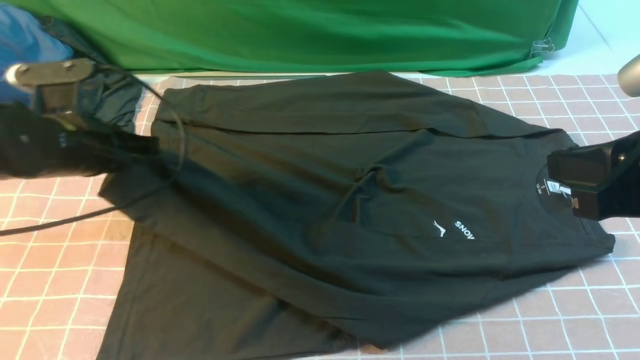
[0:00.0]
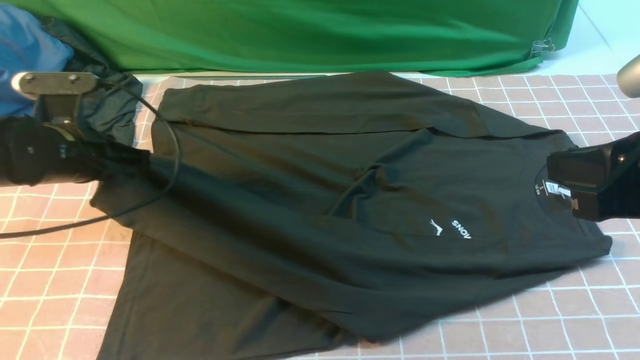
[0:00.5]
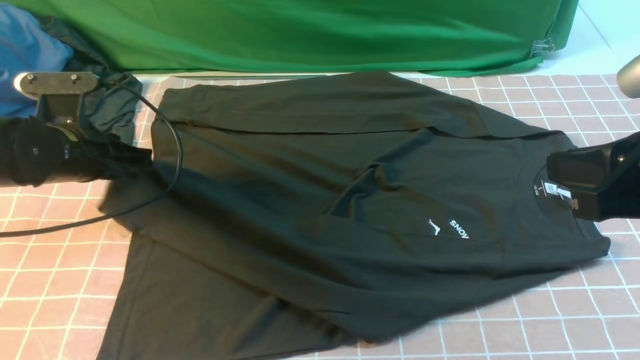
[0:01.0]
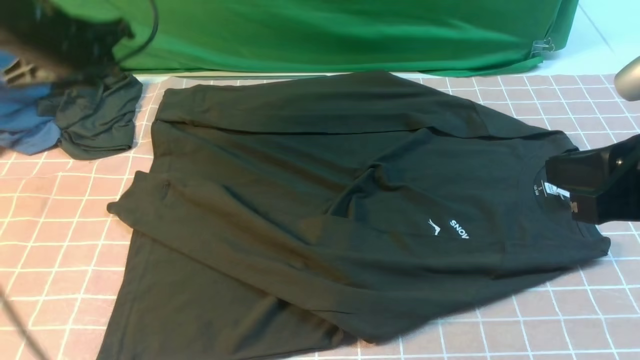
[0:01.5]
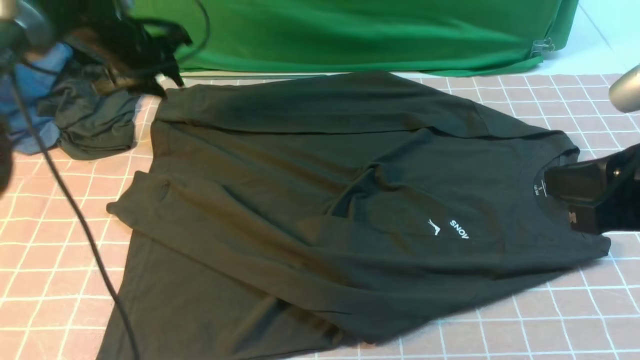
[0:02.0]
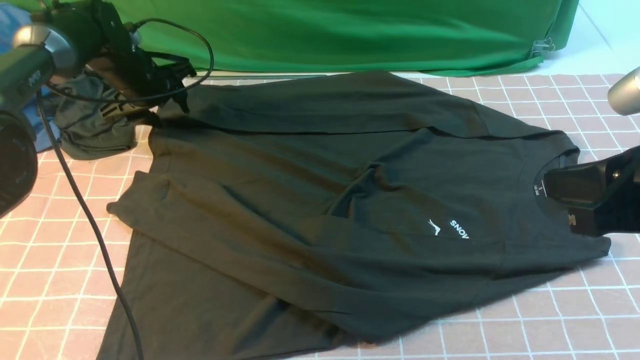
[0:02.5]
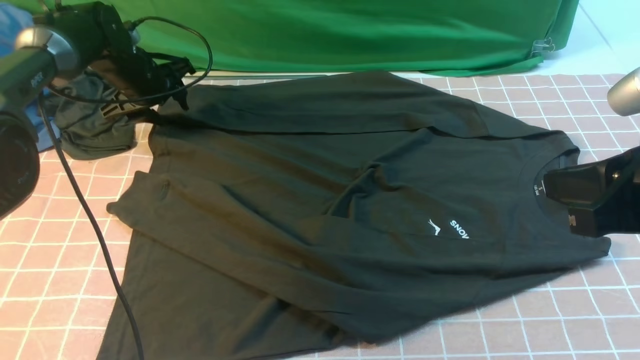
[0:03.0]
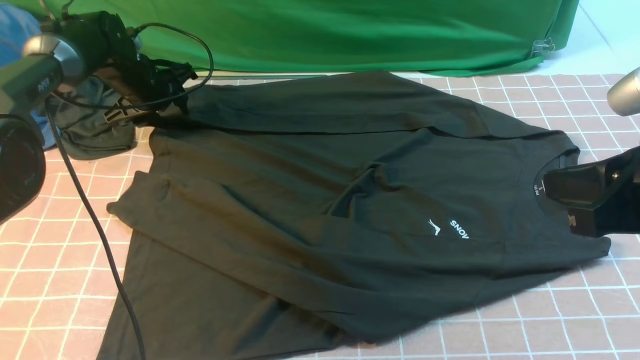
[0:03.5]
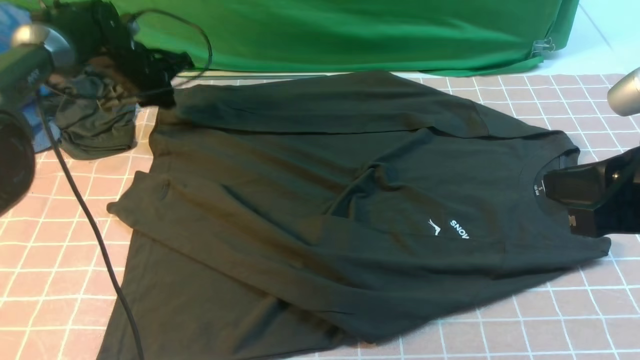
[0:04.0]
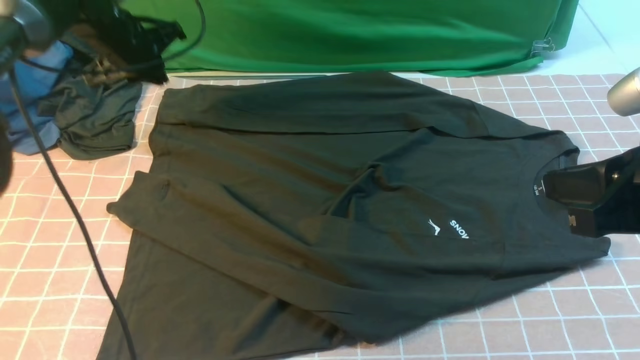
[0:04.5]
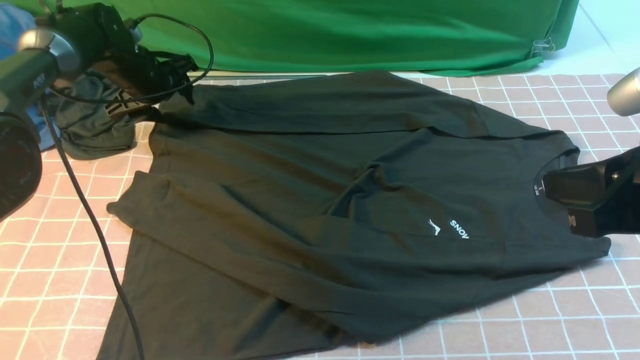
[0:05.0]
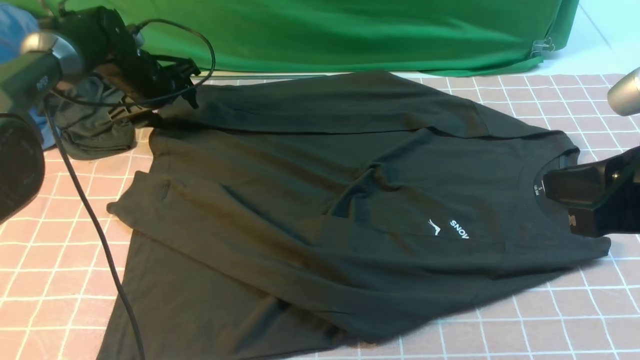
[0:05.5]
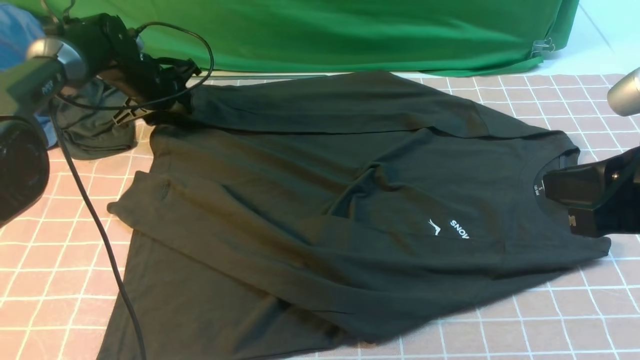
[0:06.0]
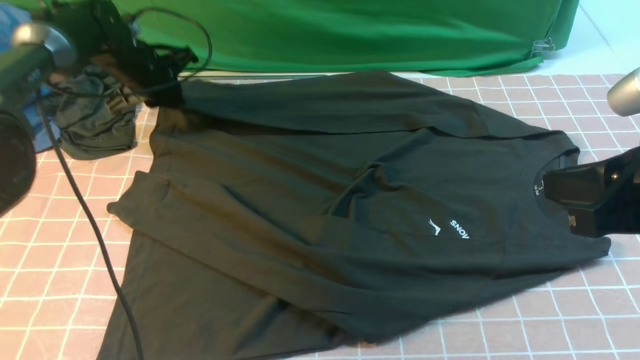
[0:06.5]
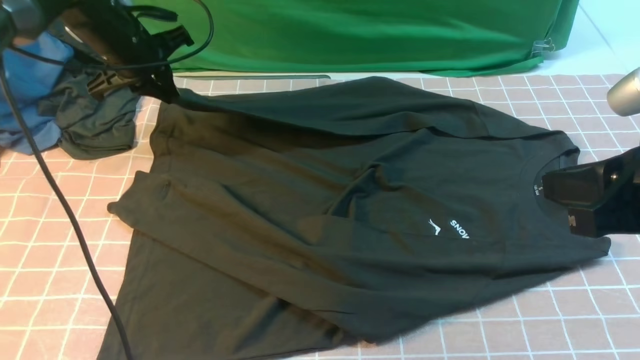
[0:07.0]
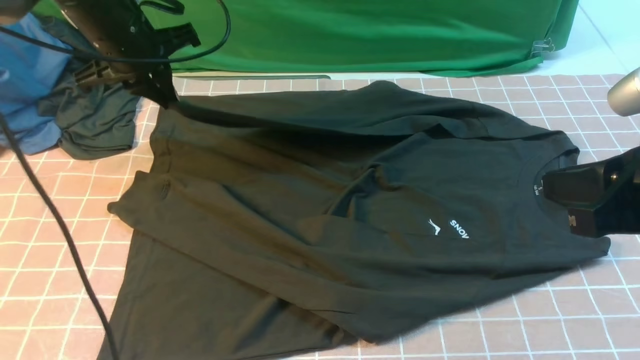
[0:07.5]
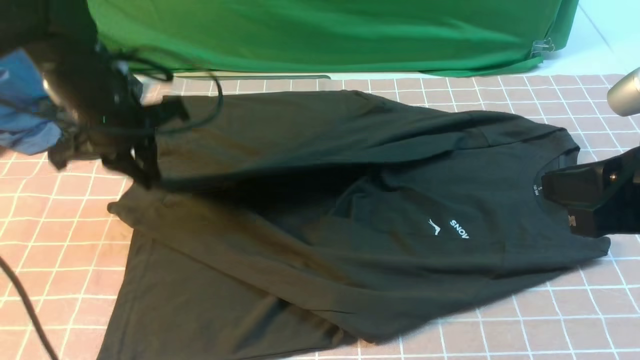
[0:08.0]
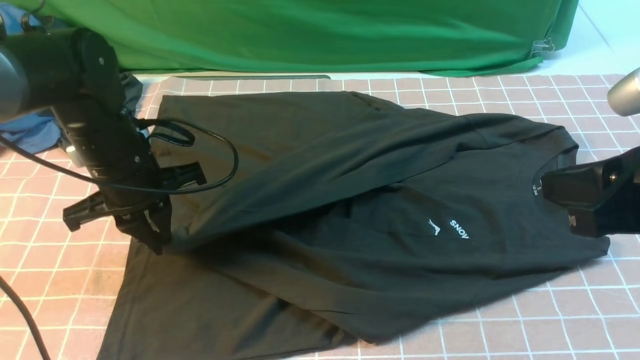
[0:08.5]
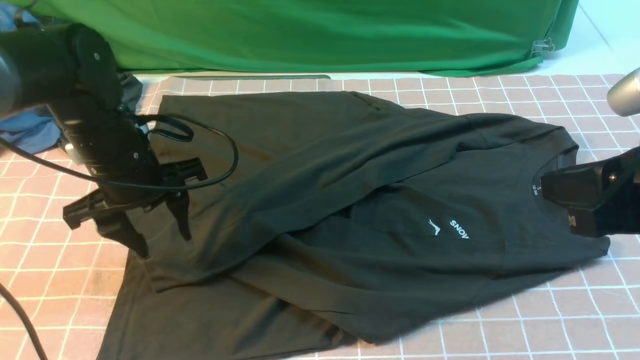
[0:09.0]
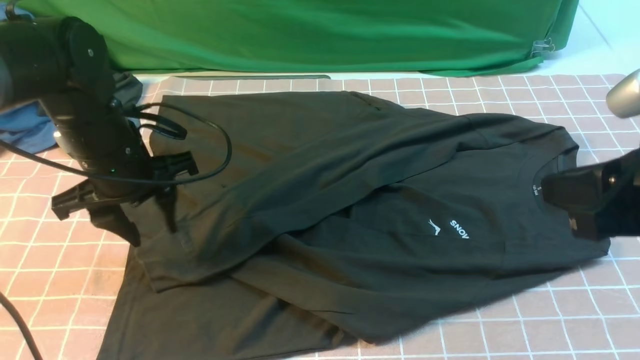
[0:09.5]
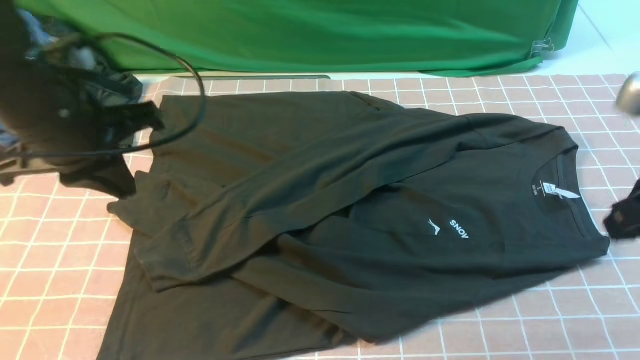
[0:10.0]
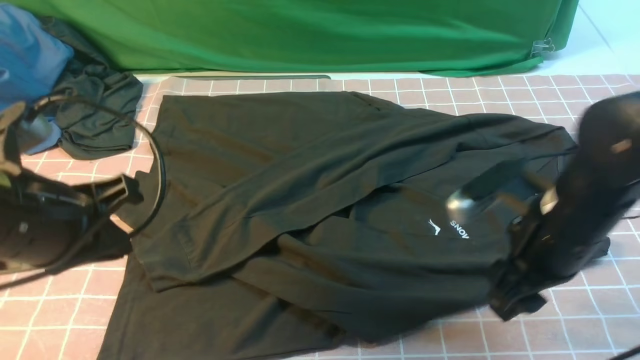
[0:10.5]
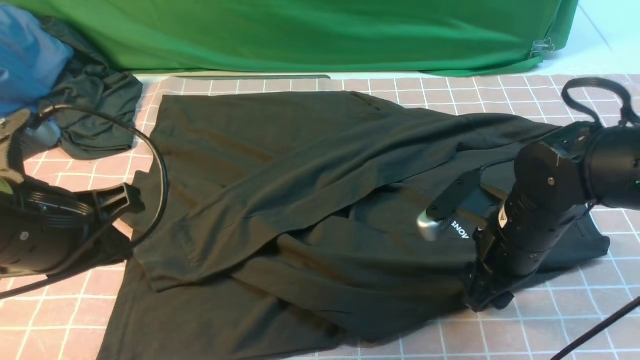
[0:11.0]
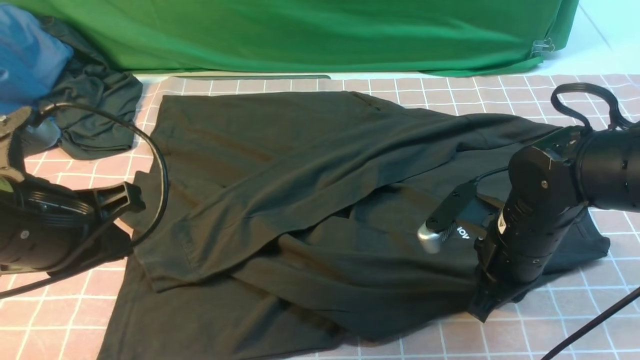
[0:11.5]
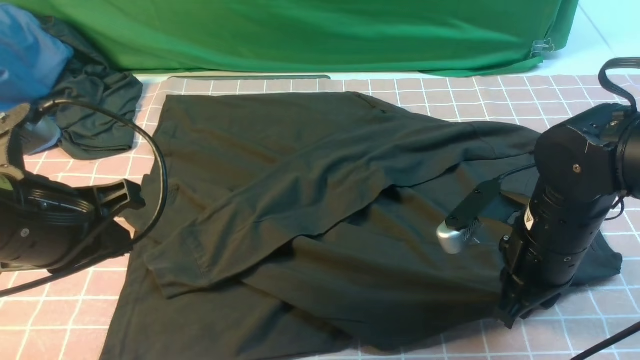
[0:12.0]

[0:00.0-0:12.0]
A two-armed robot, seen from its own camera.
Step, 0:01.5 to 0:06.0: use the left arm to clamp the cuff farthest from it.
Step, 0:06.5 to 0:08.5: use the left arm to drag and drop the cuff onto the cuff closest to the left arm.
0:00.0 to 0:02.0: The left gripper heads forward, covering some 20 cm, and opens its fingers.
0:02.0 to 0:04.0: The left gripper closes its fingers.
0:04.0 to 0:06.0: The left gripper opens up.
0:06.0 to 0:08.0: The left gripper shifts some 20 cm backward and upward, and closes its fingers.
0:08.0 to 0:10.0: The left gripper goes about 10 cm backward and upward, and opens, then closes again.
0:10.0 to 0:12.0: The left gripper moves backward, about 10 cm, while the right gripper travels downward and to the left by about 15 cm, and opens, then closes once more.

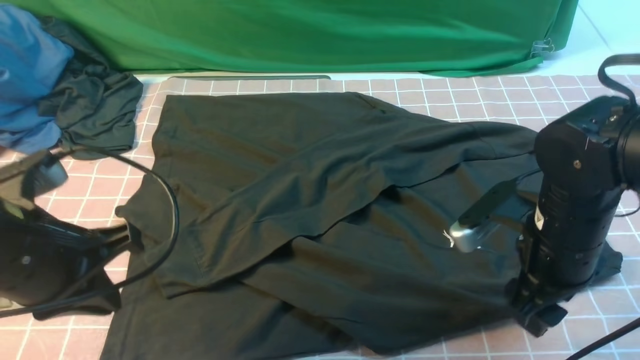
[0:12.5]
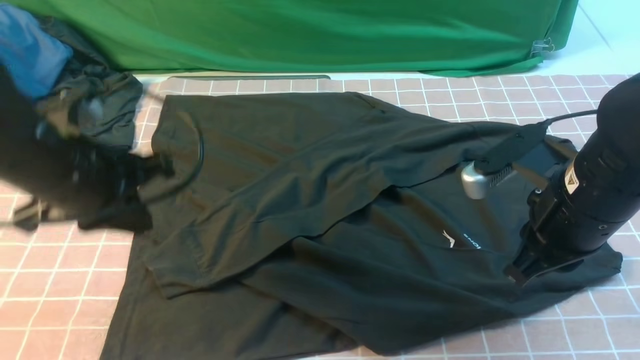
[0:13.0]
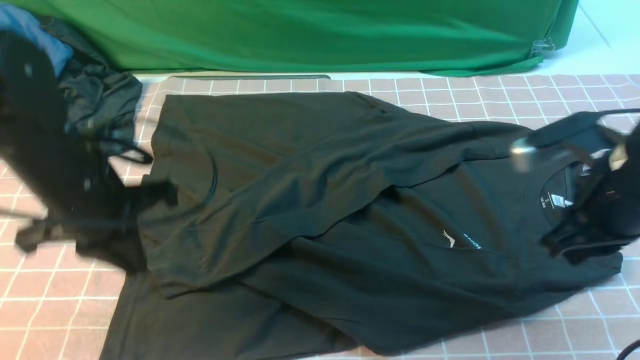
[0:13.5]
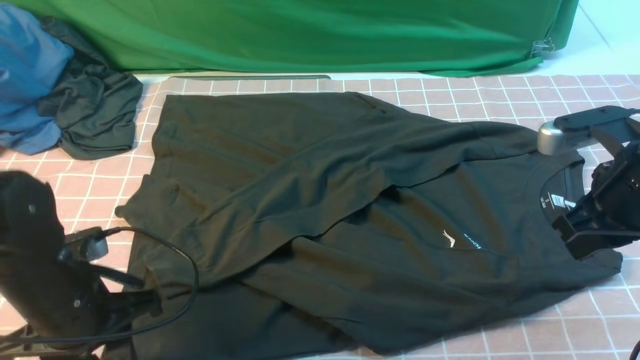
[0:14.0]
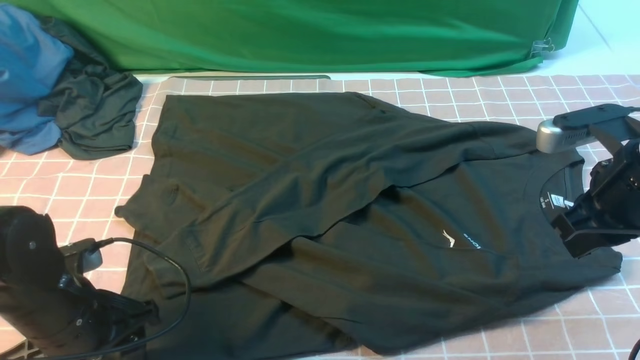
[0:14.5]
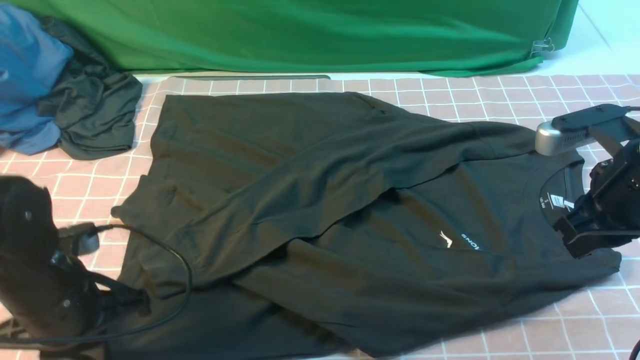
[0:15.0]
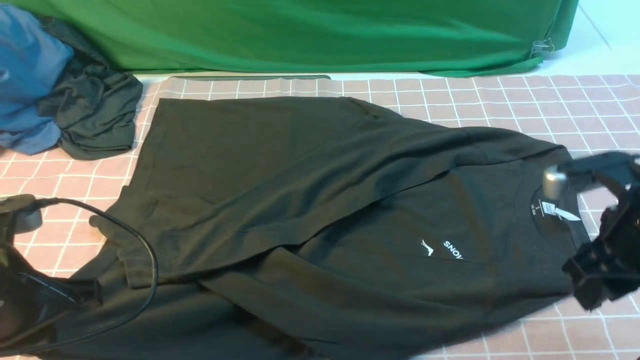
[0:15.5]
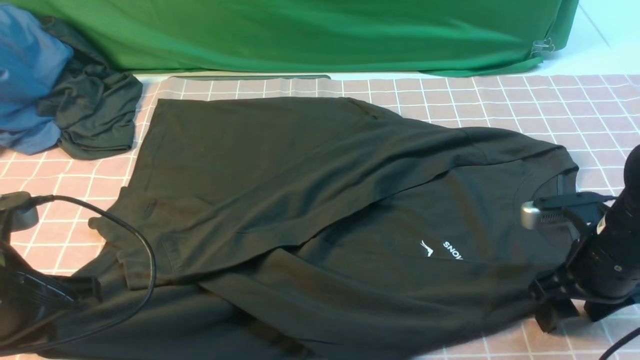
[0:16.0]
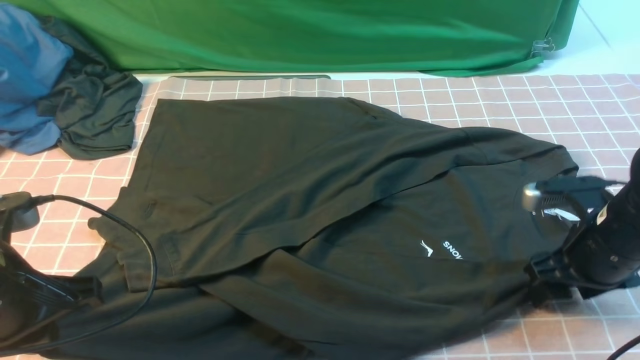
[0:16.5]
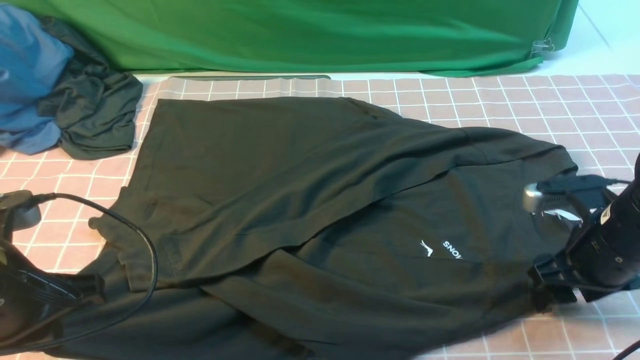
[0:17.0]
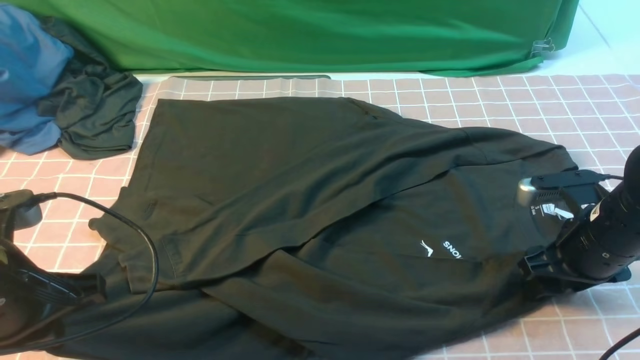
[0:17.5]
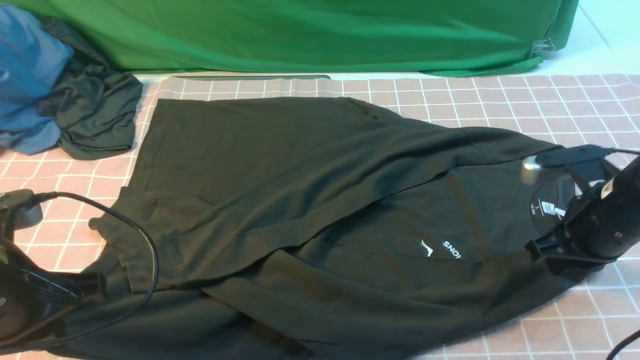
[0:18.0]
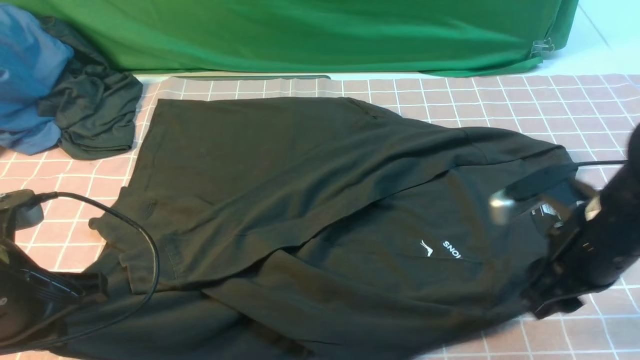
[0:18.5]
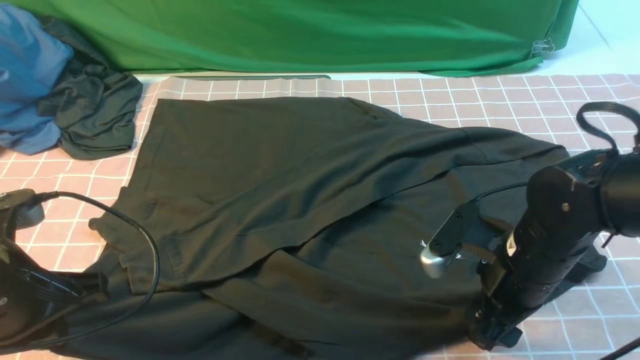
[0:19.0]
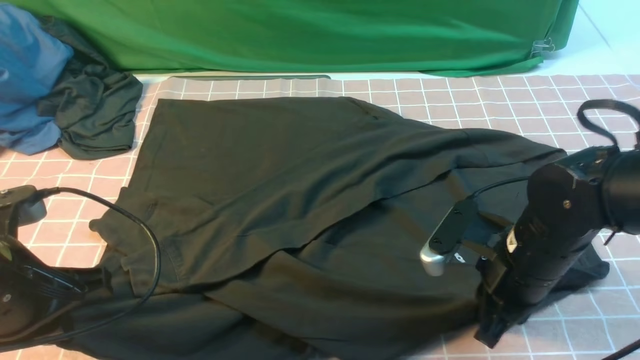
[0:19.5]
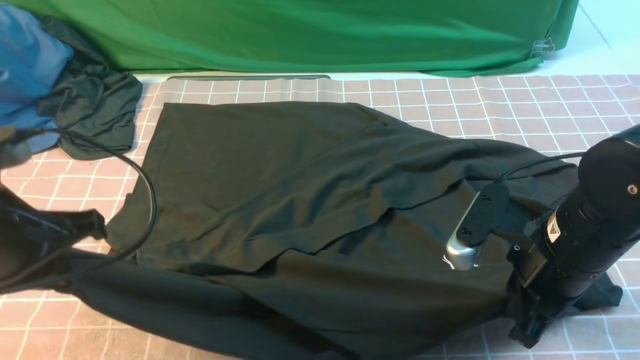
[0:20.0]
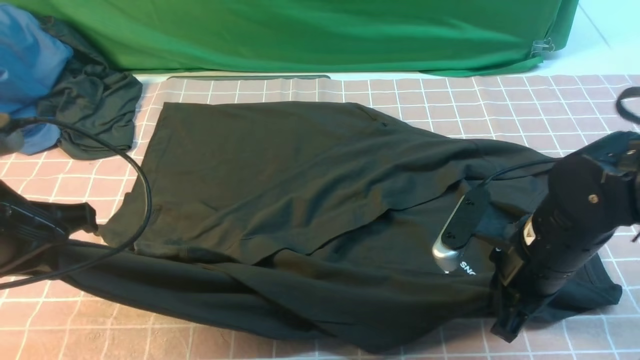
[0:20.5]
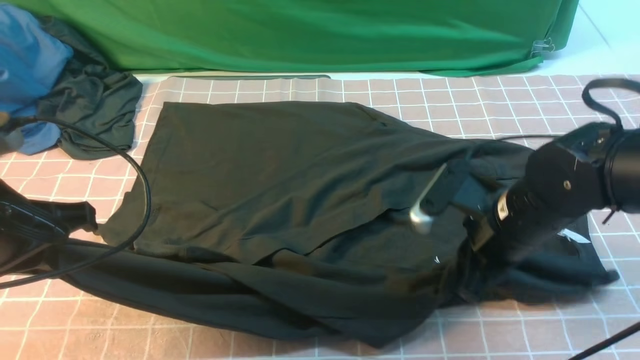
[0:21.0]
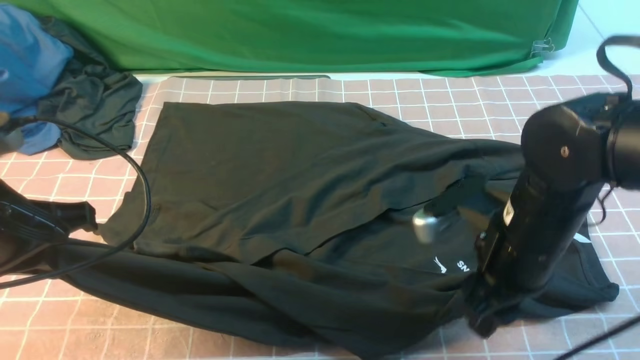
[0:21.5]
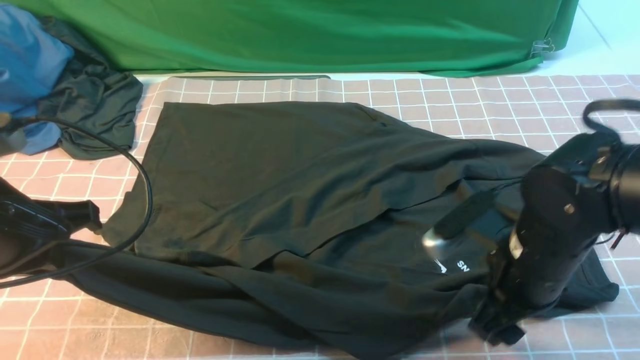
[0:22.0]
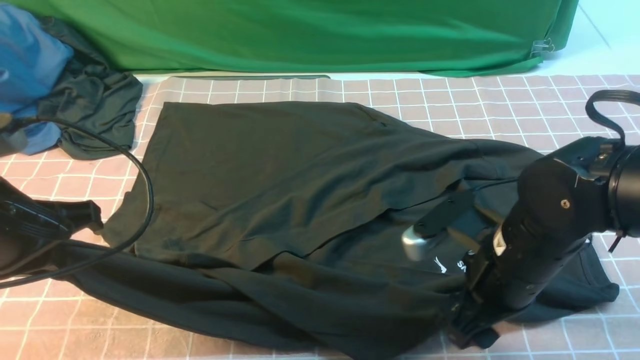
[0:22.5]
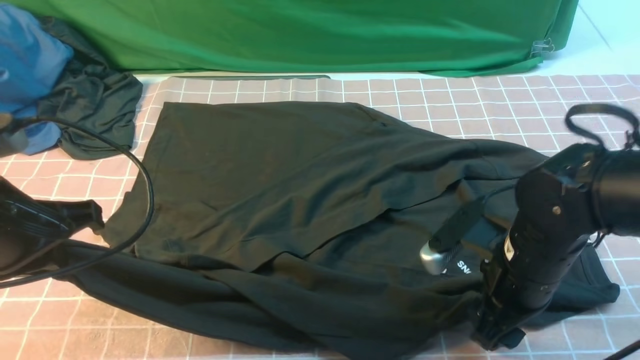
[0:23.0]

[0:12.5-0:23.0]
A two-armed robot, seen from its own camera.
Step, 0:12.5 to 0:19.0: use both arms simultaneously to clamp the lower edge of the clothing fabric.
0:12.5 to 0:14.5: The right gripper shifts about 5 cm to the right, and closes up; the left gripper is displaced downward by approximately 10 cm, and opens its fingers.
0:14.5 to 0:16.5: The right gripper moves downward, about 10 cm, and opens up. Meanwhile the left gripper moves upward, roughly 10 cm, and closes its fingers.
0:16.5 to 0:19.0: The right gripper moves to the left, roughly 10 cm, and closes, then reopens.
0:19.0 to 0:21.0: The left gripper moves roughly 5 cm. The right gripper closes its fingers.
0:21.0 to 0:23.0: The grippers move only a little.
